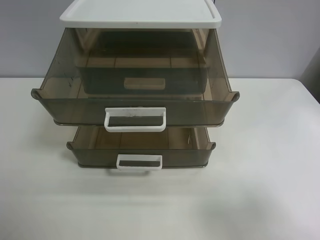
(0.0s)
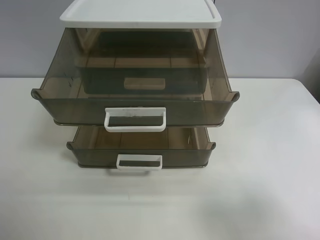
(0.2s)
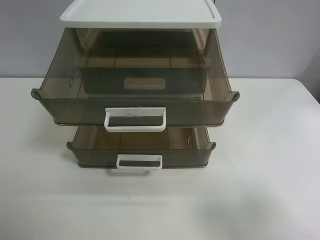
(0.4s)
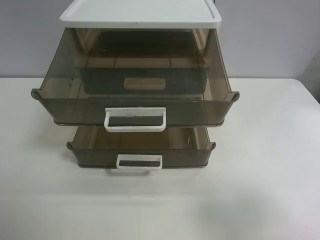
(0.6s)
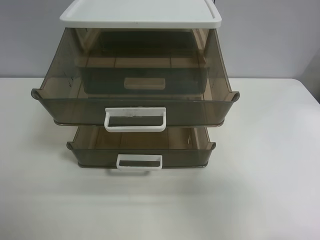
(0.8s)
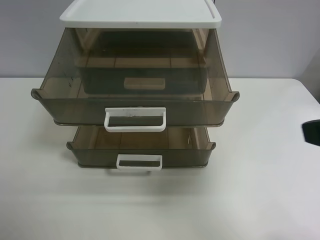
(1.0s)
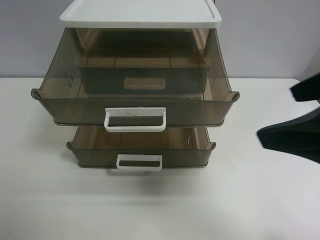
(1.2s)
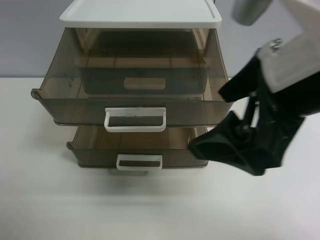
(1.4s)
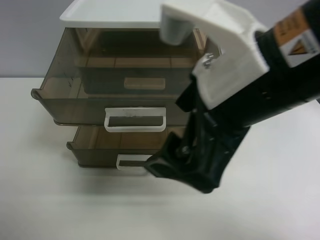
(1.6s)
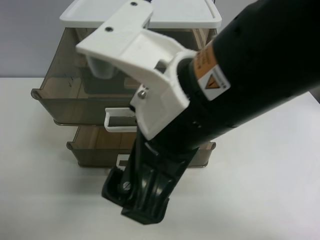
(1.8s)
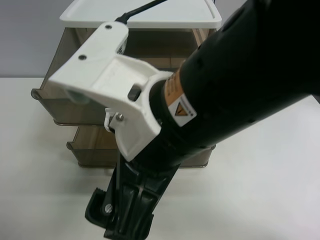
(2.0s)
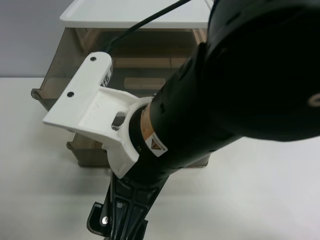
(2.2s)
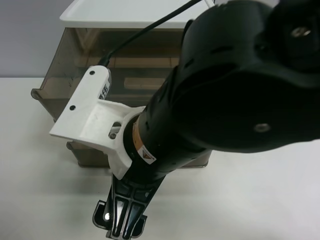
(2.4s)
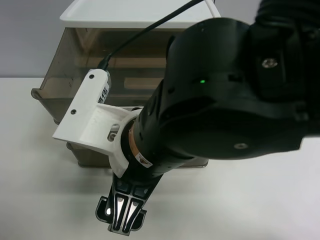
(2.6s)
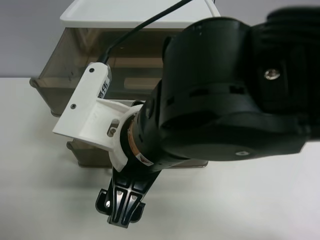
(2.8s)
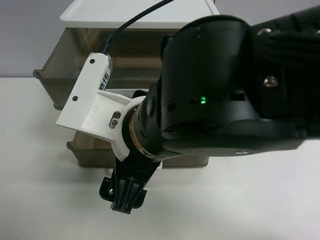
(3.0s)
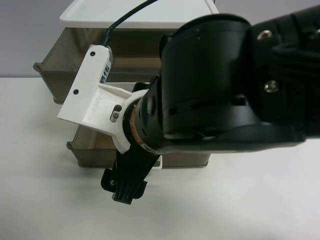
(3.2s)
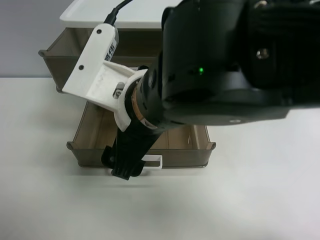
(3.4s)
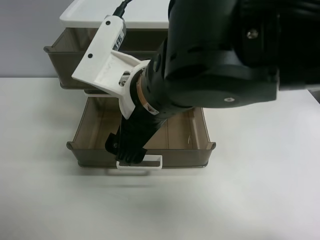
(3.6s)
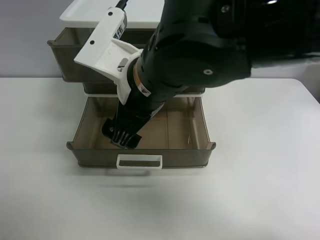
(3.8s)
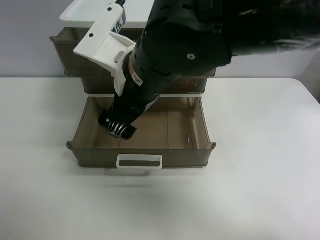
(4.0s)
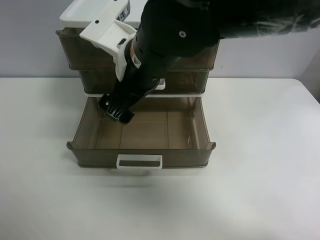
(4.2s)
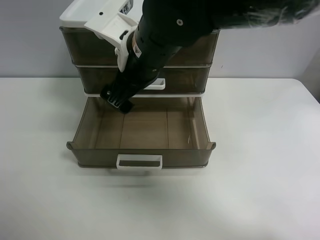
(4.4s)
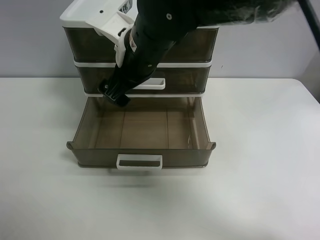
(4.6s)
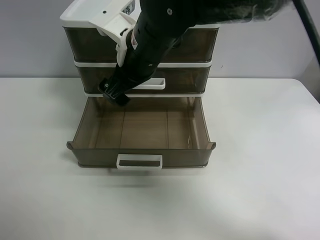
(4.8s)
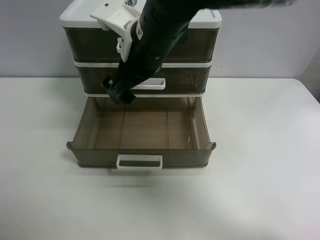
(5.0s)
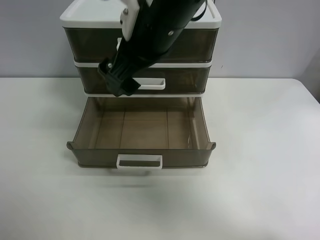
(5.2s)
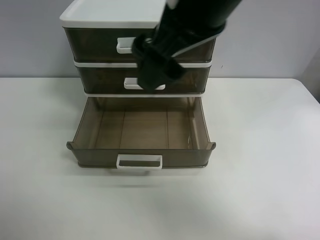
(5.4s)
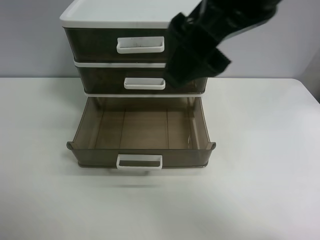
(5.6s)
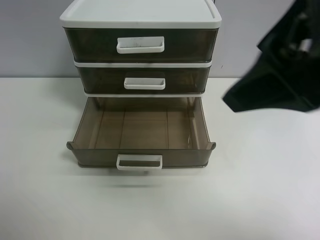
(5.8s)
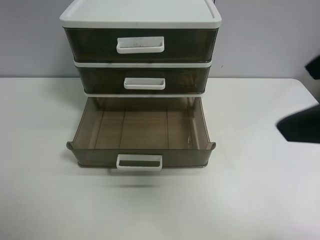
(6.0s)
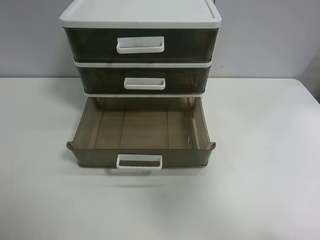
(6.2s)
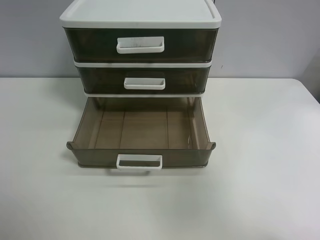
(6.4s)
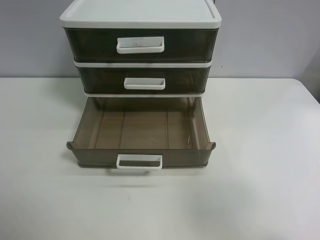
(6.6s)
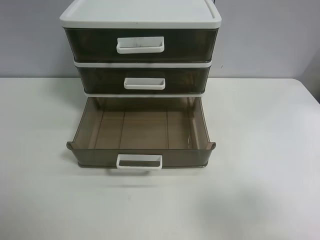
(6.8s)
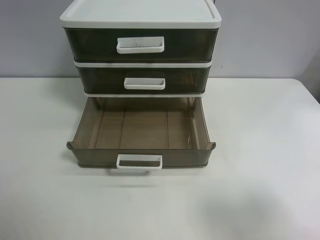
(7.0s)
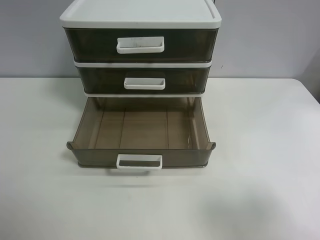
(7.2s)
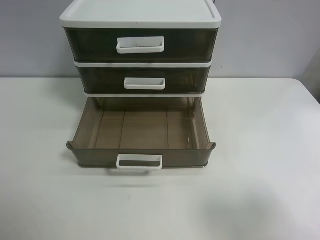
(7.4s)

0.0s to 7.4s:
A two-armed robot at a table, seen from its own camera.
Task of the whole recording: close the top drawer.
Step, 0.0s to 2.6s: Use the right gripper to touch the topmost layer of the storage cabinet.
Step, 2.8s to 5.0s: Push the top drawer closed.
0.0s to 1.4s: The right gripper shifts about 20 cm to the left and forward.
1.4s to 3.0s: The right gripper heads to the left and downward, covering roughly 15 cm.
3.0s to 4.4s: The right gripper shifts some 15 cm forward.
4.4s to 6.0s: The right gripper shifts roughly 30 cm to the right, backward and upward.
6.0s to 7.4s: The right gripper moves downward, to the right and backward, approximately 15 cm.

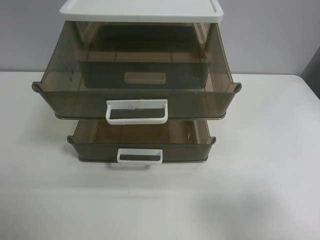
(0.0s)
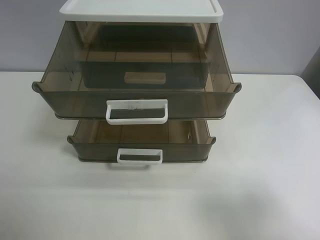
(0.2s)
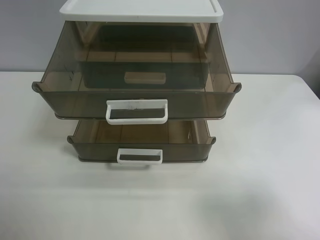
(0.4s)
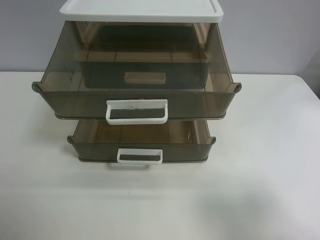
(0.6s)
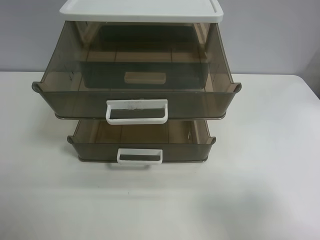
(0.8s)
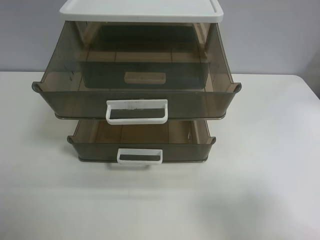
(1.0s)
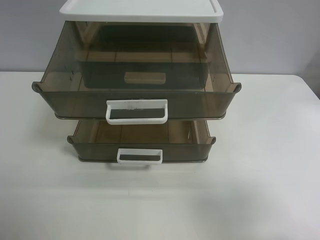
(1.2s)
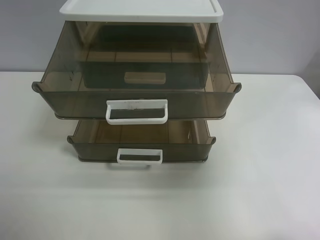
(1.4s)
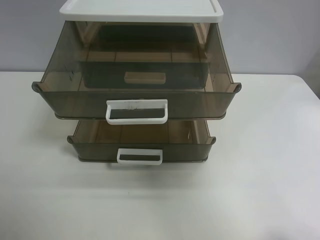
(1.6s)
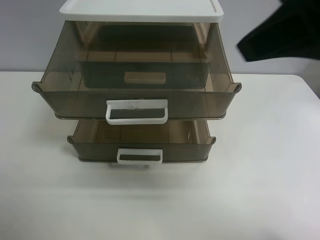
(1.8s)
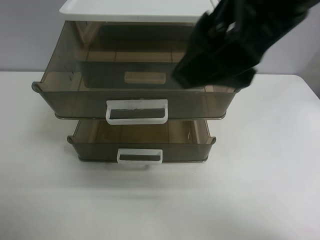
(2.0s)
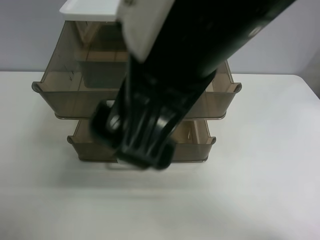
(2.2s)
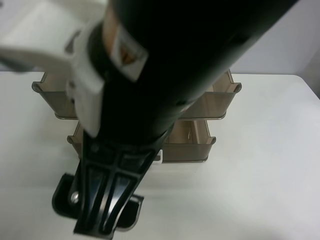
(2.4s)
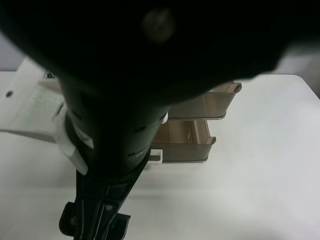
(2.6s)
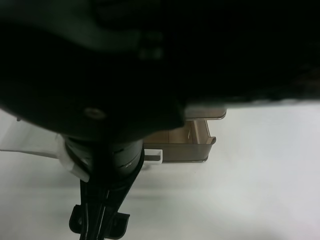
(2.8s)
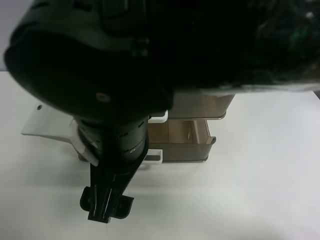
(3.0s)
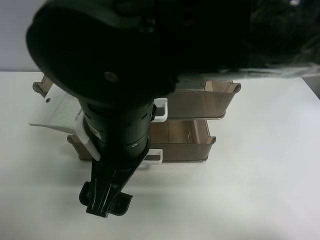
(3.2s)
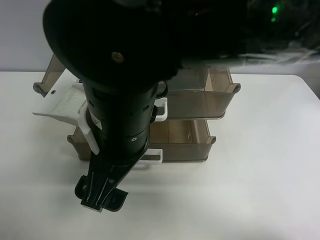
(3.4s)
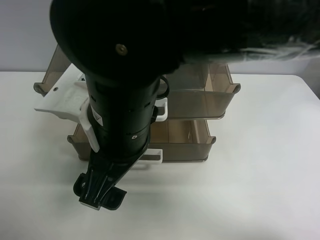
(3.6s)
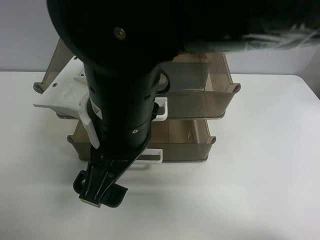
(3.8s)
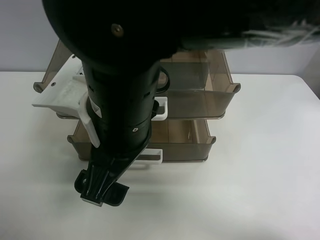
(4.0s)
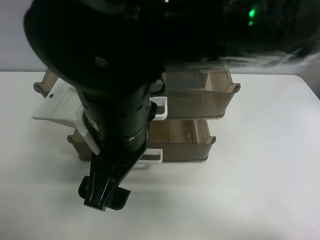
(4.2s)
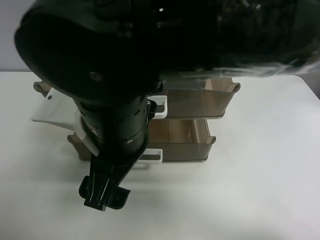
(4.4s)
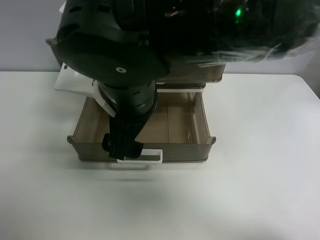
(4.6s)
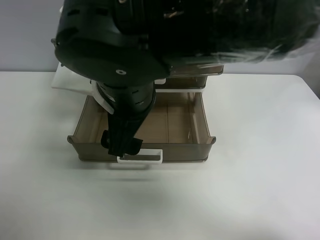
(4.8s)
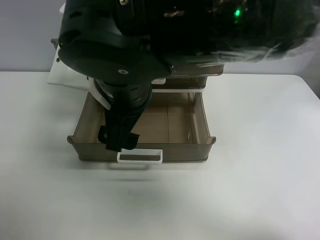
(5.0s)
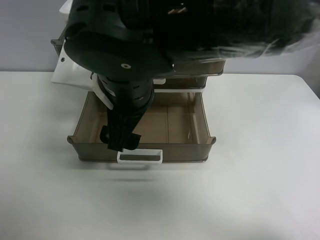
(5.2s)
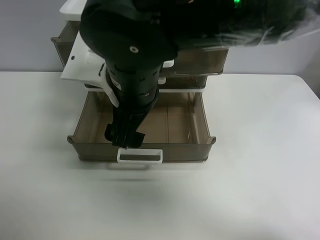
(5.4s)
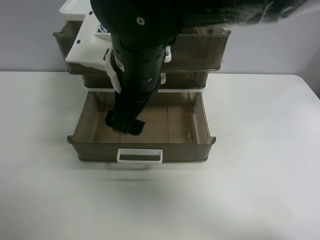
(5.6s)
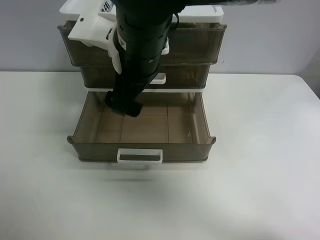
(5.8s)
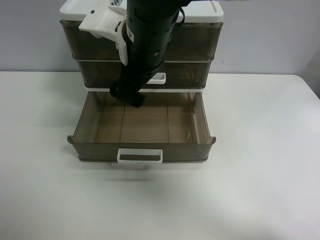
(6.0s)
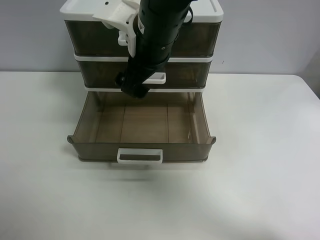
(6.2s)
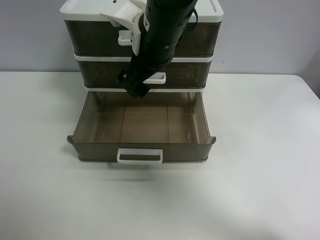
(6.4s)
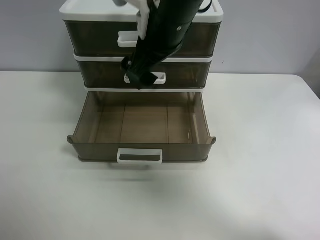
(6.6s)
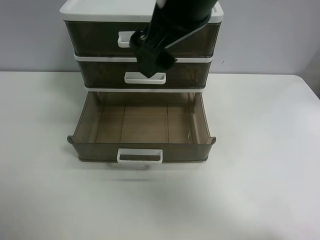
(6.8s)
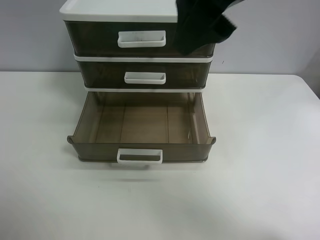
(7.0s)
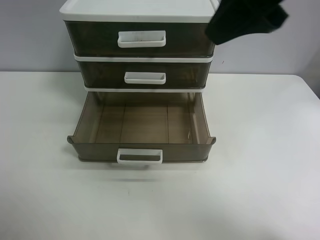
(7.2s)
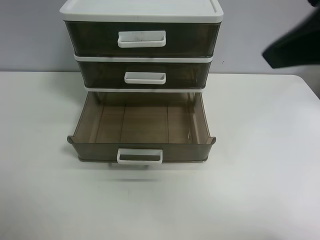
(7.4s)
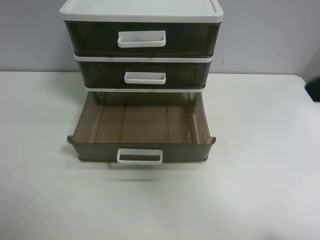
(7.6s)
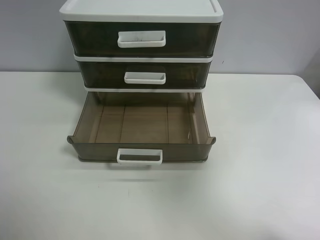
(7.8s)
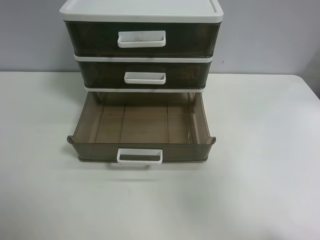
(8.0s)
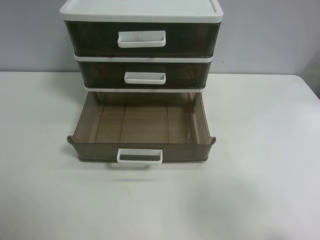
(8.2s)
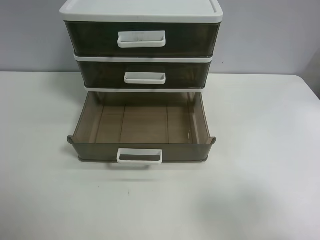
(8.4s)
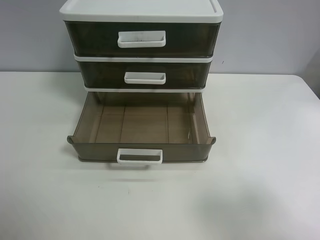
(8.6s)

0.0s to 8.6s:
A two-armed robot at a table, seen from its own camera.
Task of the whole recording: close the top drawer.
Step, 0.0s to 4.4s: Use the right gripper to touch the topmost layer of the storage cabinet.
Step, 4.6s to 6.6s: Push the top drawer closed.
0.0s to 1.4s: The right gripper heads upward and forward, covering approximately 10 cm.
1.4s to 2.8s: The right gripper shifts roughly 30 cm to the left.
4.4s to 5.8s: The right gripper goes some 10 cm forward.
5.8s to 7.2s: The right gripper heads to the right, upward and backward, covering roughly 25 cm.
7.2s to 8.6s: The right gripper heads to the right, backward and downward, covering some 30 cm.
